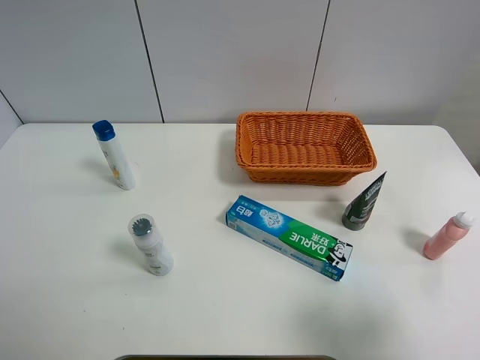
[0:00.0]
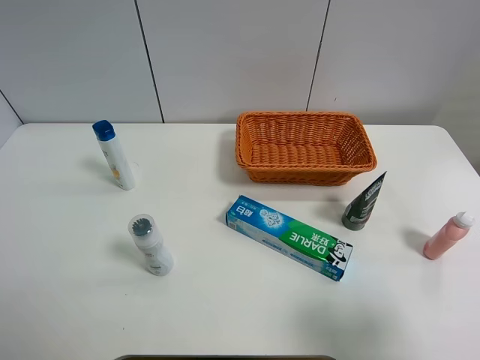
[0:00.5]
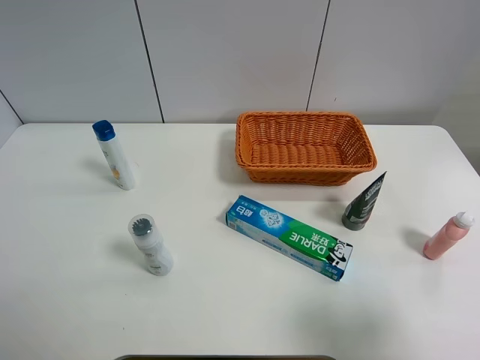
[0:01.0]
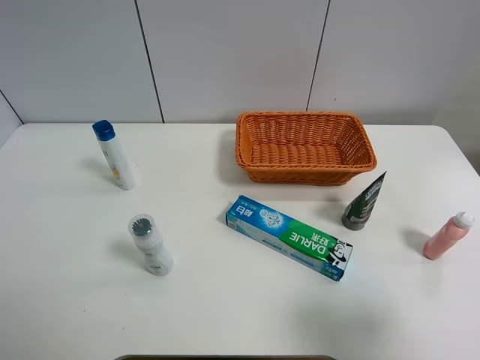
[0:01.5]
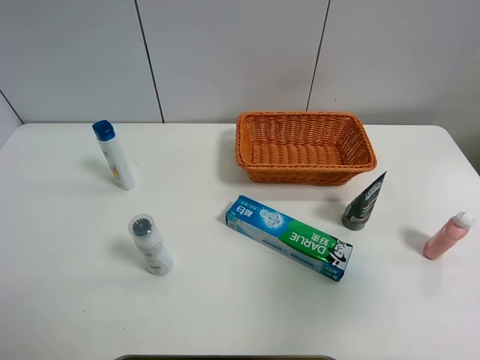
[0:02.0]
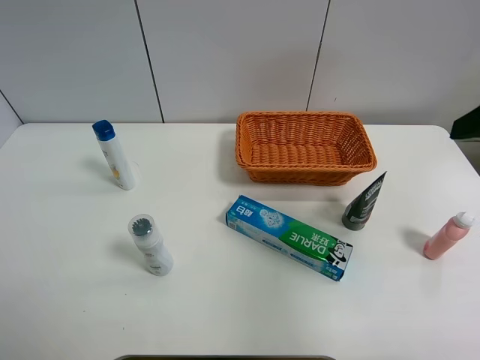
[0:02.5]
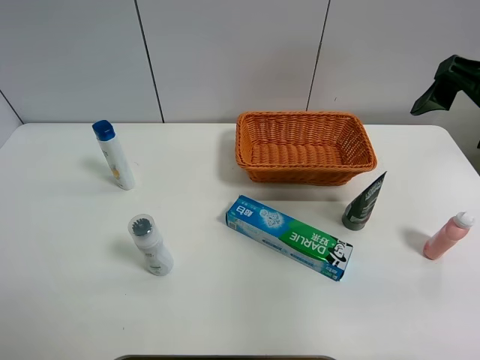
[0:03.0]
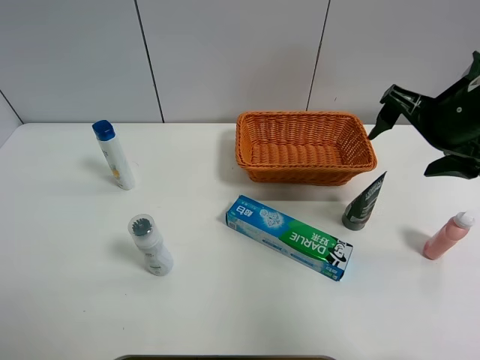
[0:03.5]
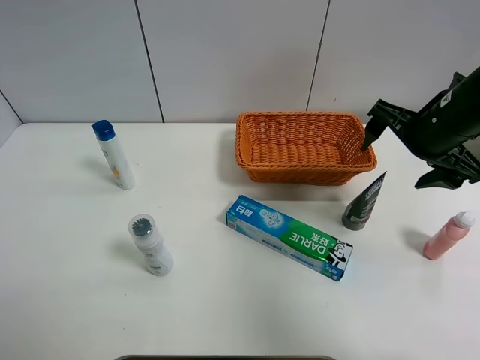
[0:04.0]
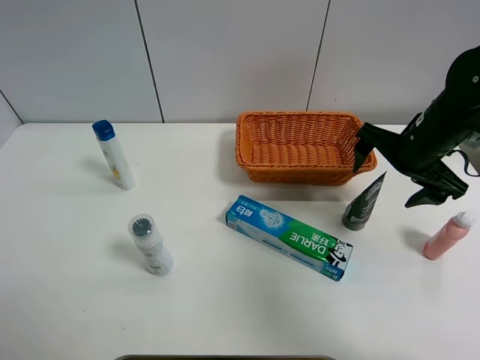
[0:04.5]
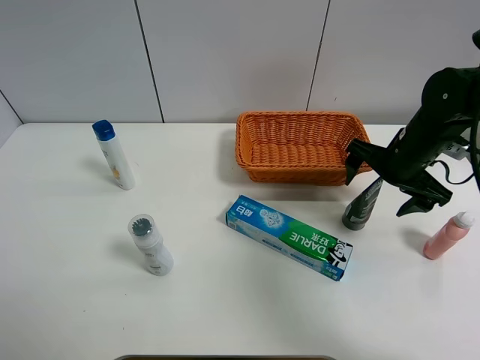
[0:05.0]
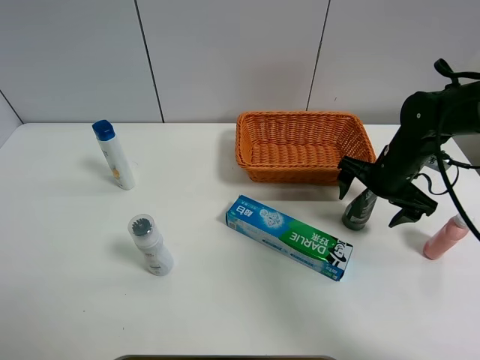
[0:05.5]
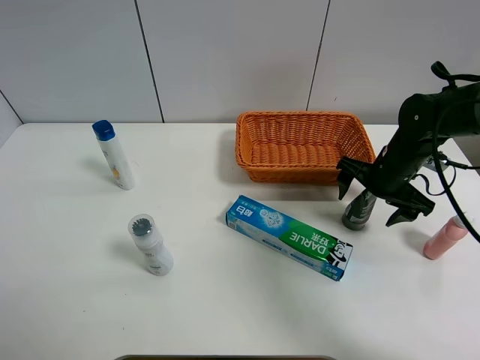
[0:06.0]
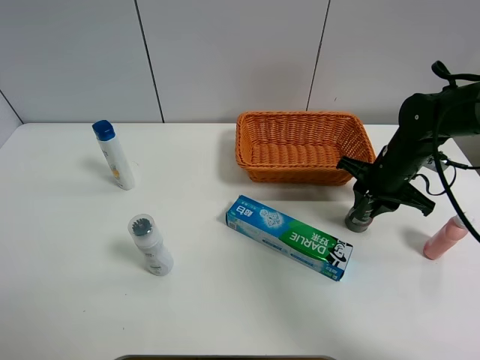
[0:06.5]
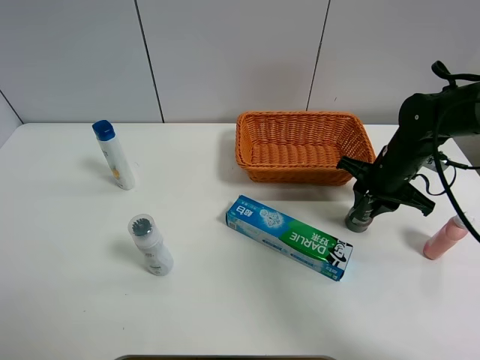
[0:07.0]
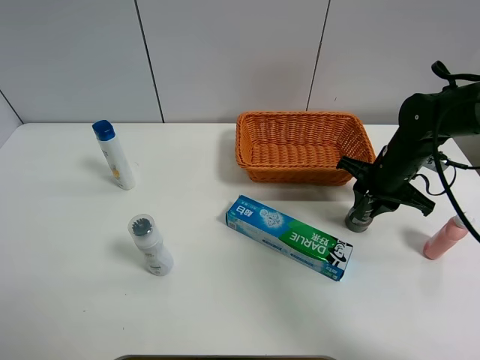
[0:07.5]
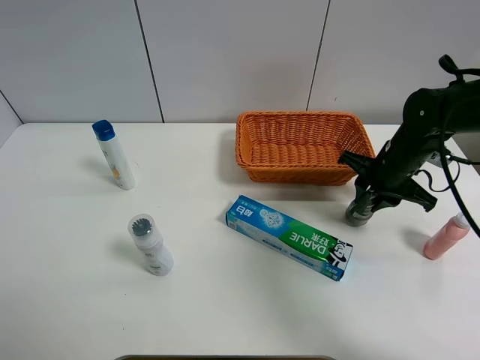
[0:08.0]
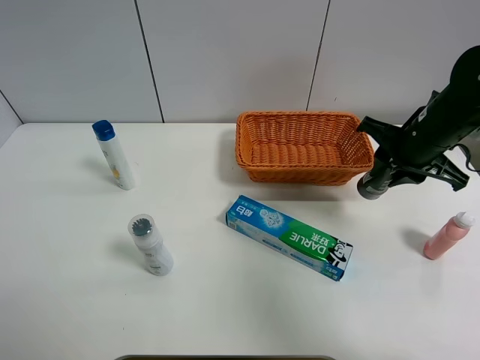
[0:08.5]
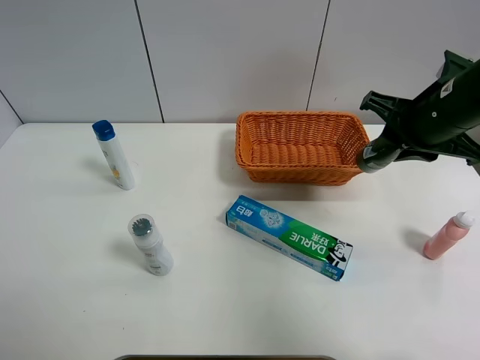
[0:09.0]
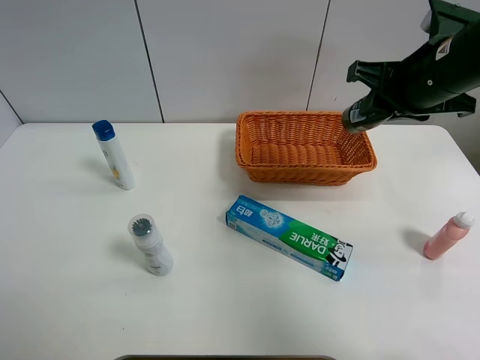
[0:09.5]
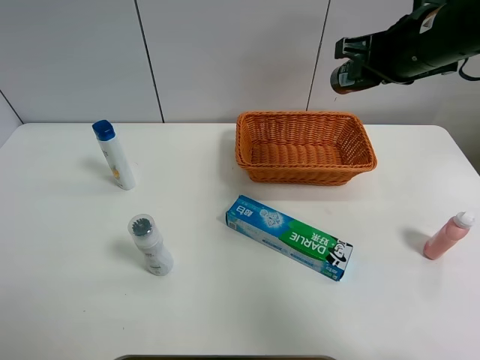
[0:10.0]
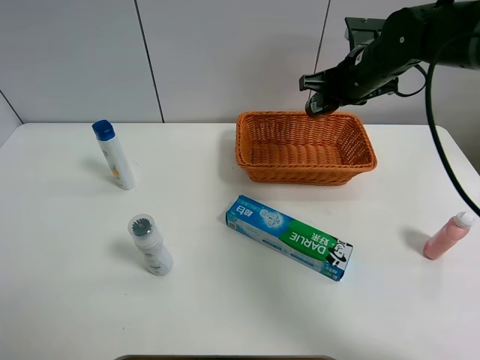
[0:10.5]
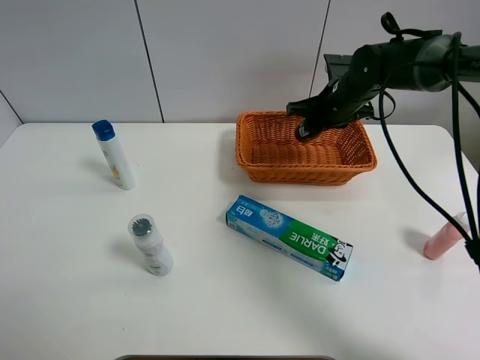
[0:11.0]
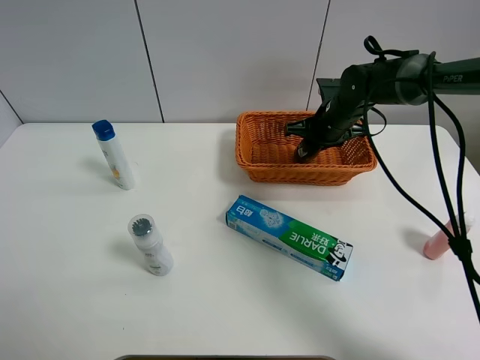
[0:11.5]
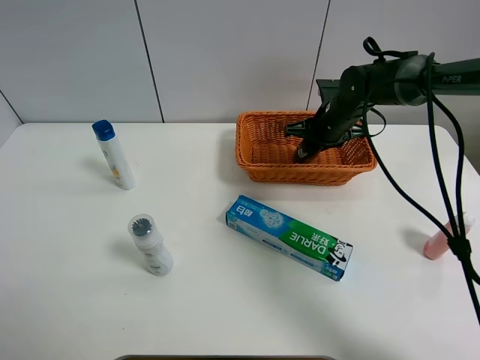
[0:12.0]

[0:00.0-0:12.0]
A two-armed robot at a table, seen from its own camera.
Task of the whole recording: Place the object closest to the toothpaste in the basket.
Step, 0:00.0 to 0:06.5: Grasp the soft facial cleanser with right gripper.
0:00.0 to 0:02.0: The right gripper moves upward and forward, roughly 10 cm.
0:02.0 to 0:04.0: The right gripper goes approximately 25 cm forward.
0:04.0 to 0:06.0: The right gripper goes roughly 10 cm downward.
0:06.0 to 0:08.0: The right gripper closes up.
0:08.0 to 0:10.0: The right gripper moves upward, about 15 cm.
0:10.0 to 0:12.0: The right gripper shifts some 20 cm downward and forward.

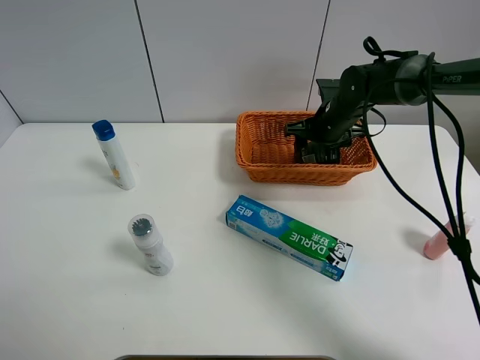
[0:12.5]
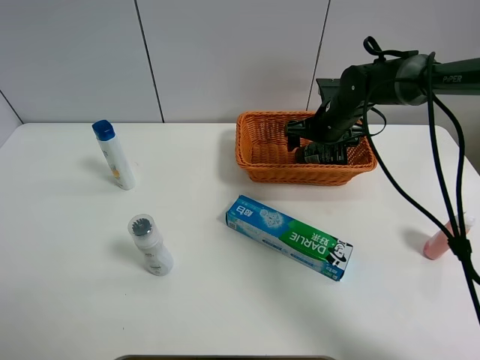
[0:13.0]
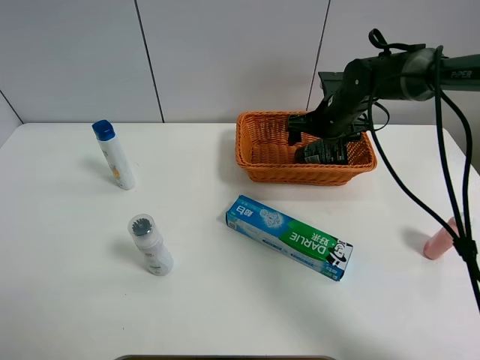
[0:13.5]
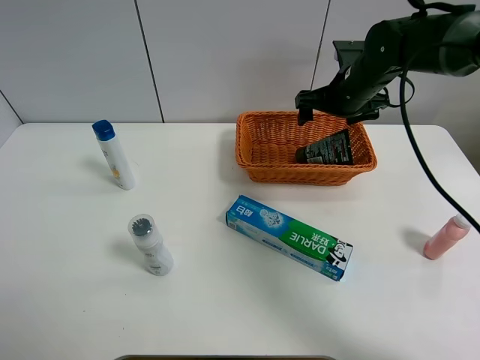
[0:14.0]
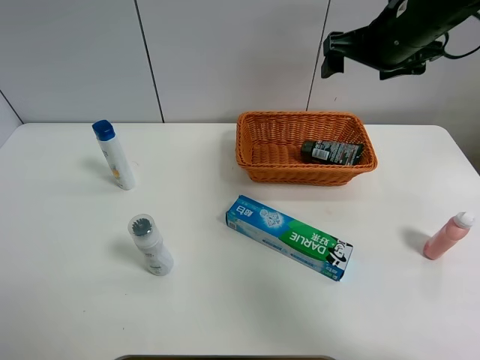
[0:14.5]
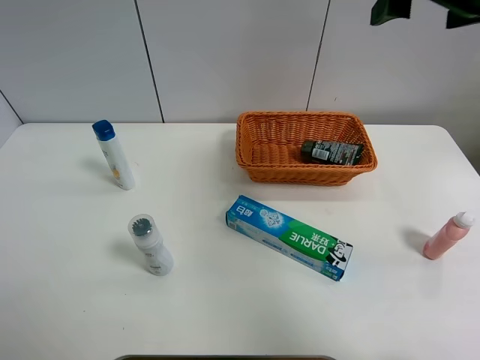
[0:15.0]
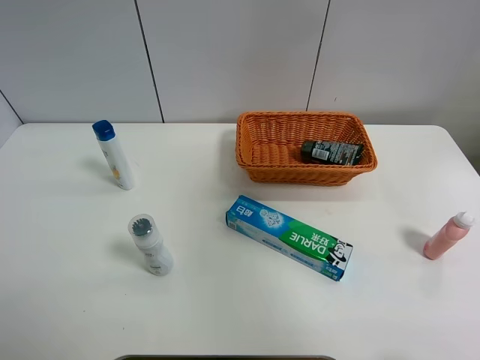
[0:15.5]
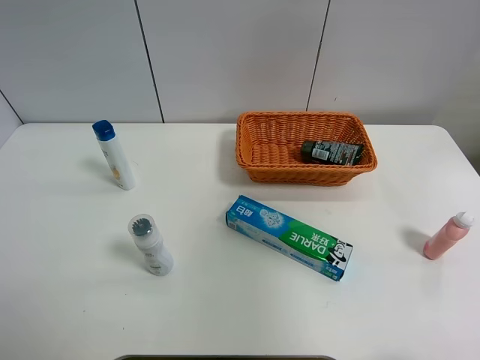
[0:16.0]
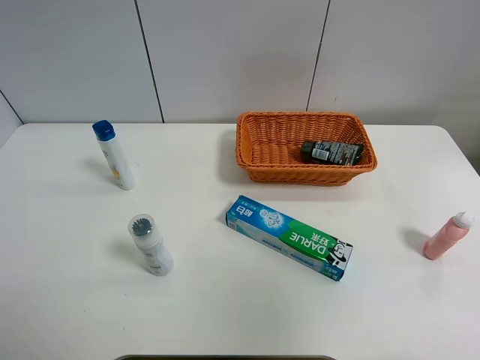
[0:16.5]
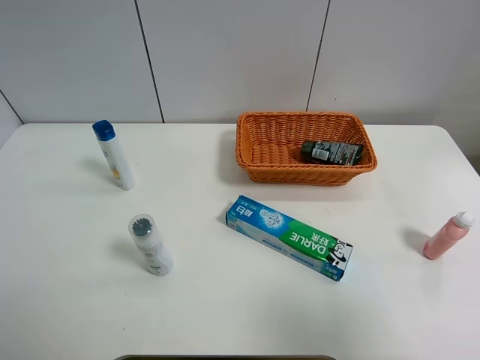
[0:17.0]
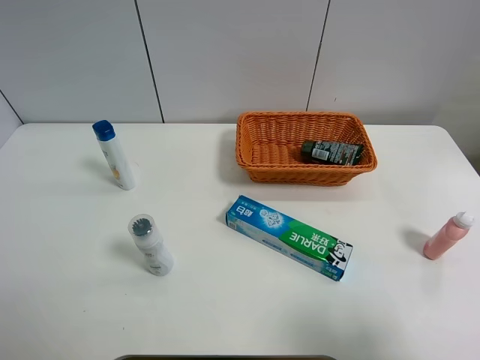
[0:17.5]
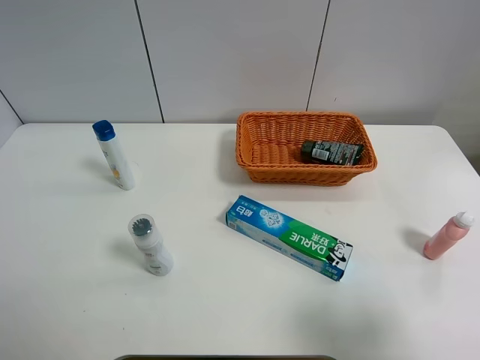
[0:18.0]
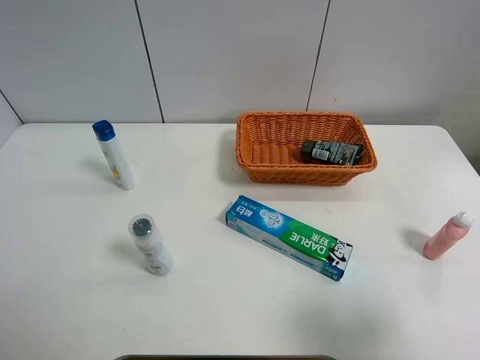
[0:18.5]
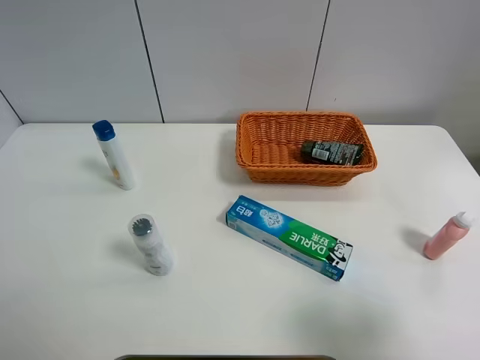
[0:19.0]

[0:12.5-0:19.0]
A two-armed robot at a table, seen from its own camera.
Task of the whole recording: Place the object closest to the toothpaste in the basket.
0:12.5 to 0:14.5: The right gripper travels upward and backward by some 20 cm, and opens its fingers.
0:14.5 to 0:17.0: The right gripper heads backward, covering about 40 cm.
0:17.0 to 0:19.0: The right gripper moves downward, some 10 cm.
